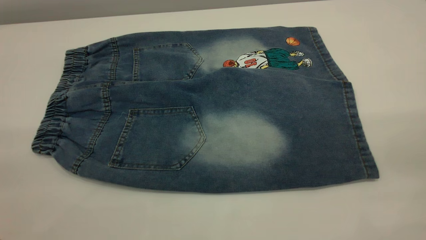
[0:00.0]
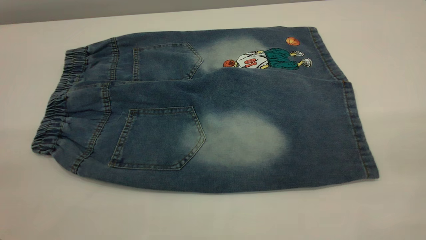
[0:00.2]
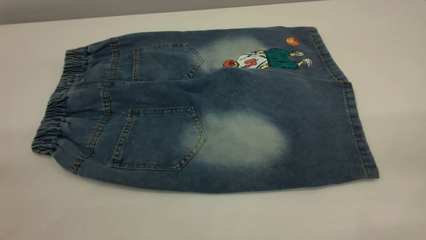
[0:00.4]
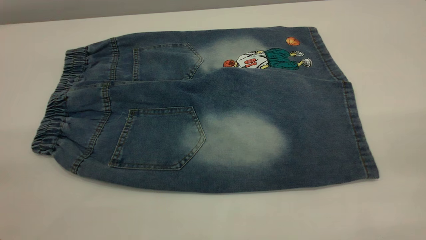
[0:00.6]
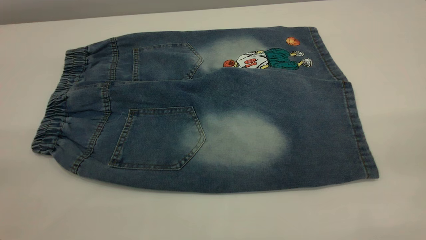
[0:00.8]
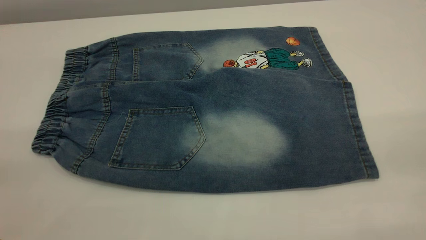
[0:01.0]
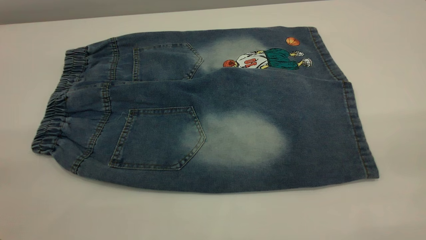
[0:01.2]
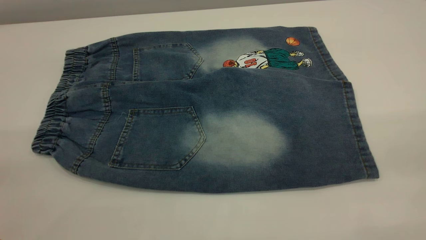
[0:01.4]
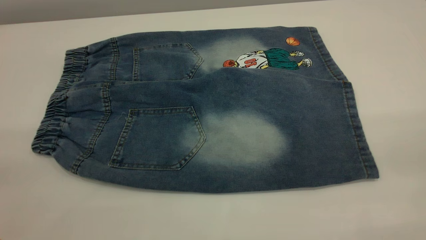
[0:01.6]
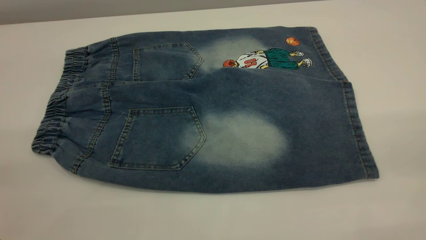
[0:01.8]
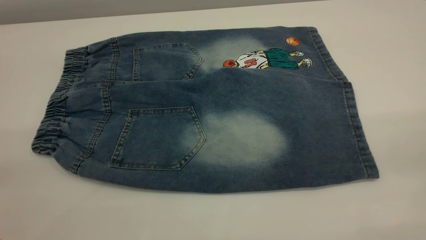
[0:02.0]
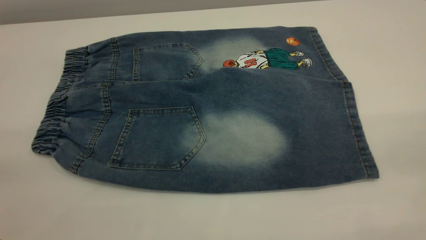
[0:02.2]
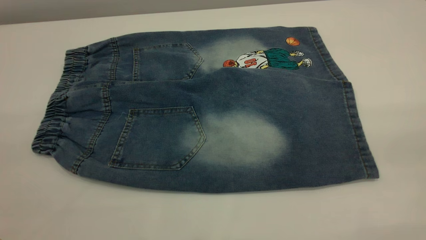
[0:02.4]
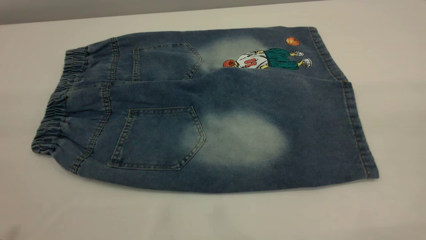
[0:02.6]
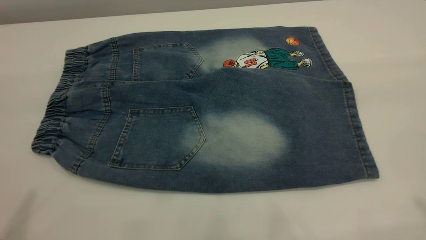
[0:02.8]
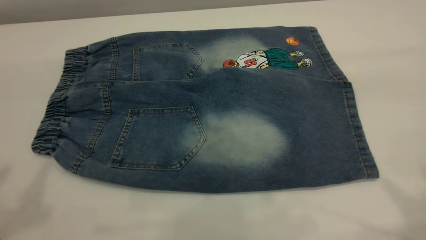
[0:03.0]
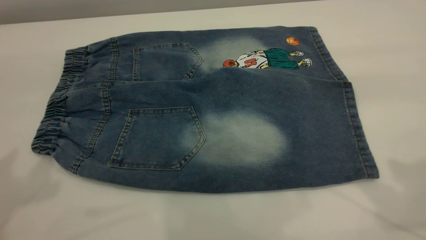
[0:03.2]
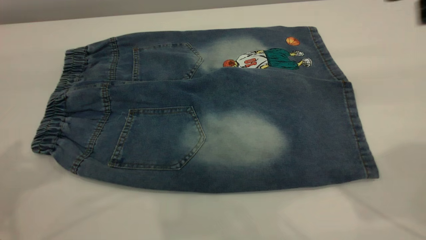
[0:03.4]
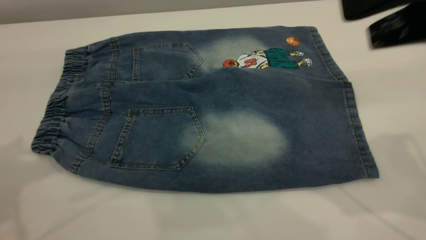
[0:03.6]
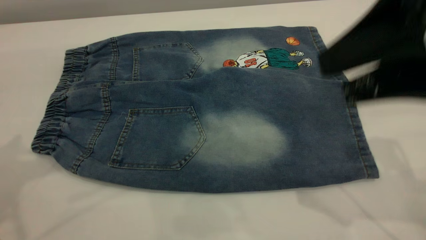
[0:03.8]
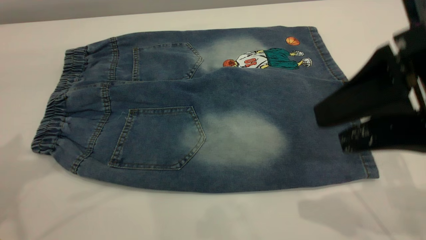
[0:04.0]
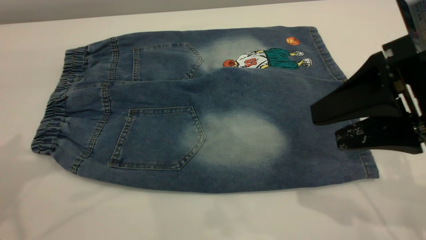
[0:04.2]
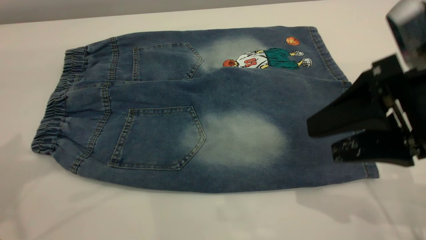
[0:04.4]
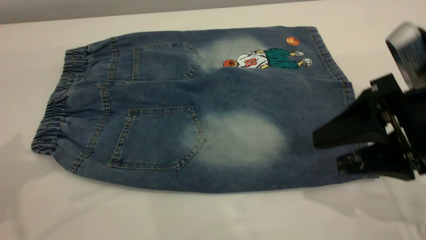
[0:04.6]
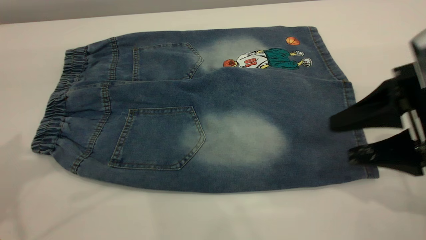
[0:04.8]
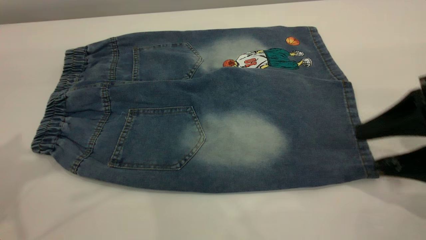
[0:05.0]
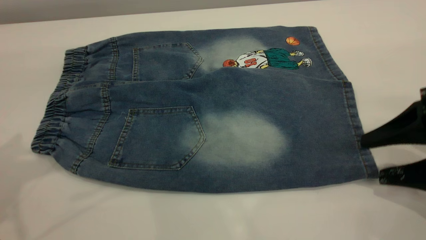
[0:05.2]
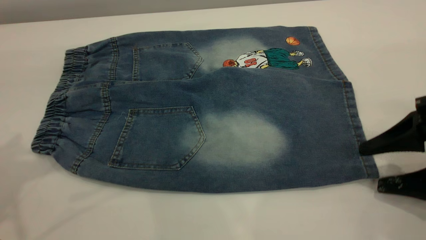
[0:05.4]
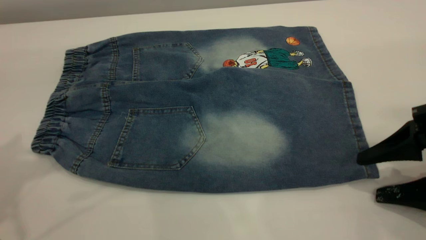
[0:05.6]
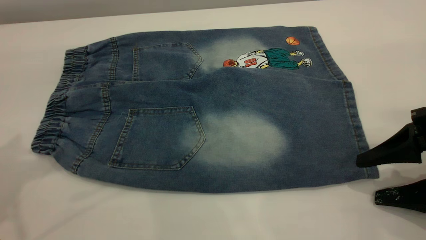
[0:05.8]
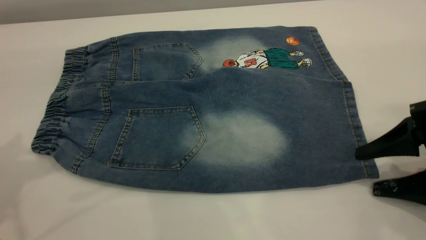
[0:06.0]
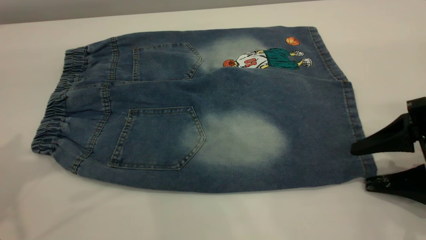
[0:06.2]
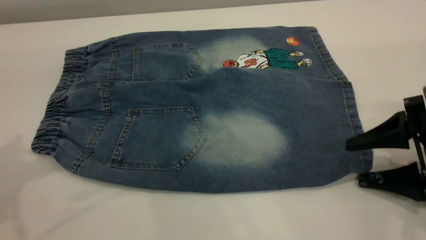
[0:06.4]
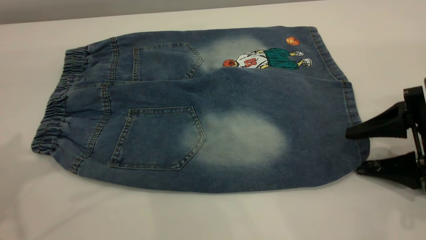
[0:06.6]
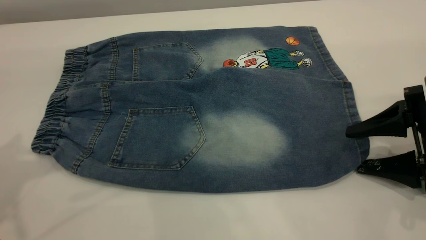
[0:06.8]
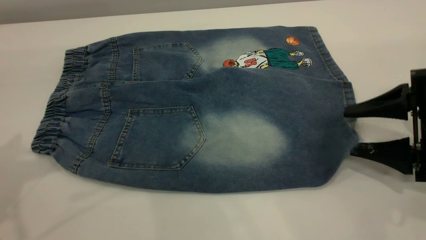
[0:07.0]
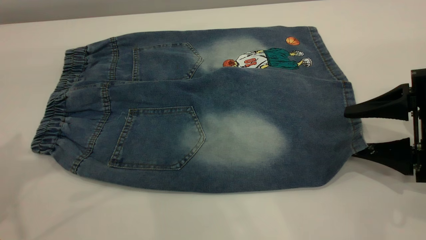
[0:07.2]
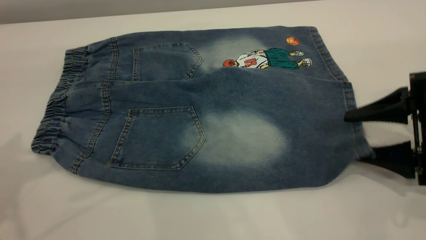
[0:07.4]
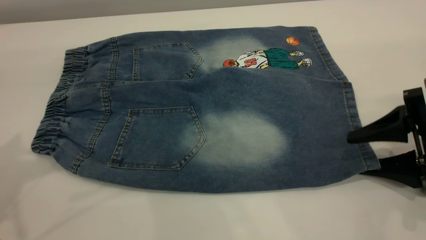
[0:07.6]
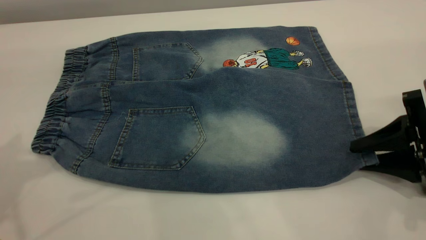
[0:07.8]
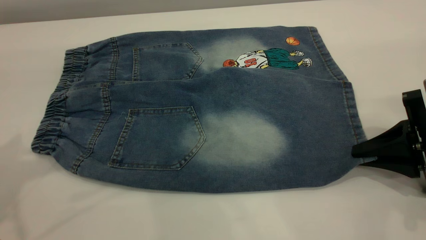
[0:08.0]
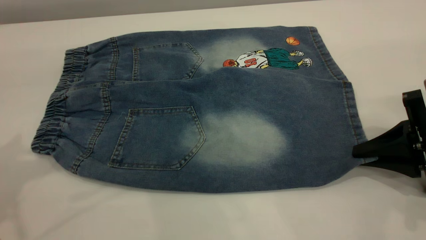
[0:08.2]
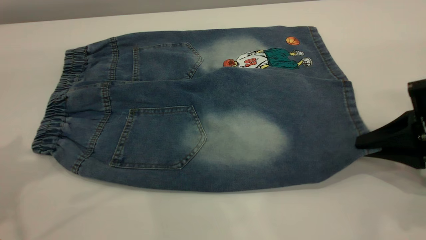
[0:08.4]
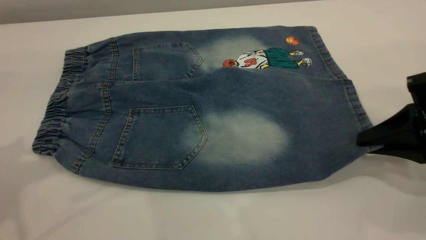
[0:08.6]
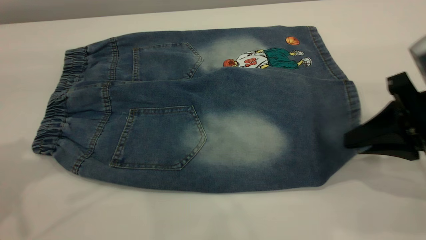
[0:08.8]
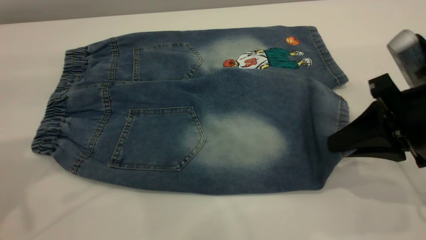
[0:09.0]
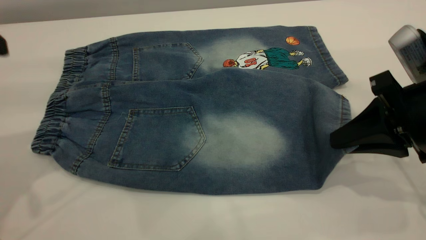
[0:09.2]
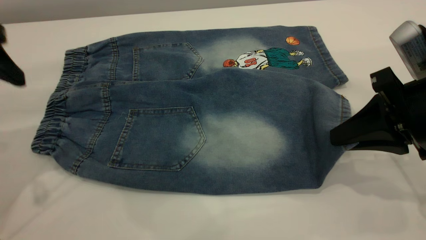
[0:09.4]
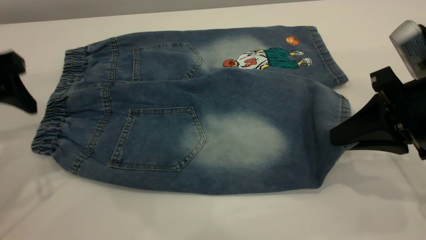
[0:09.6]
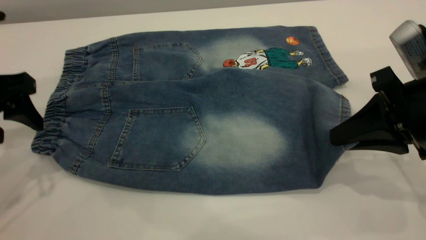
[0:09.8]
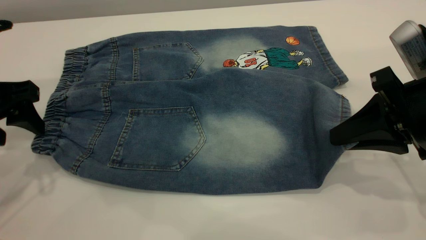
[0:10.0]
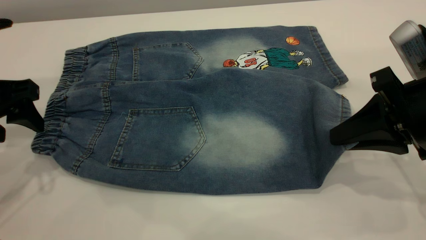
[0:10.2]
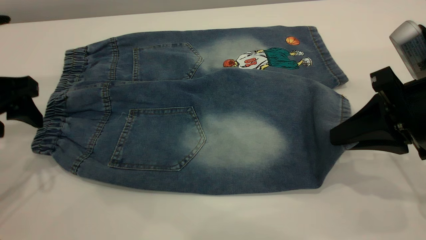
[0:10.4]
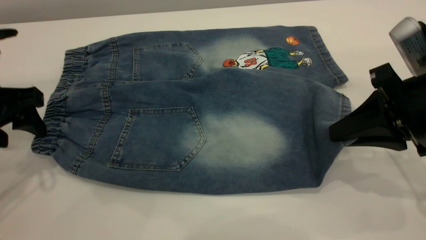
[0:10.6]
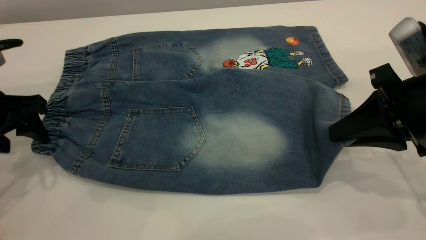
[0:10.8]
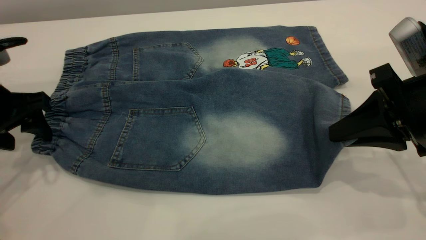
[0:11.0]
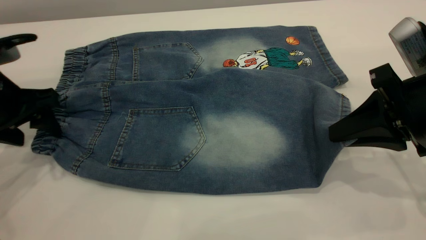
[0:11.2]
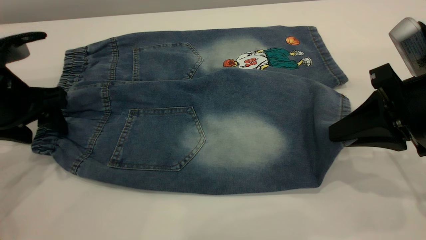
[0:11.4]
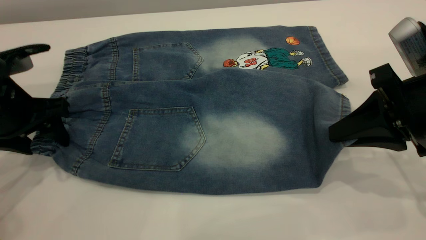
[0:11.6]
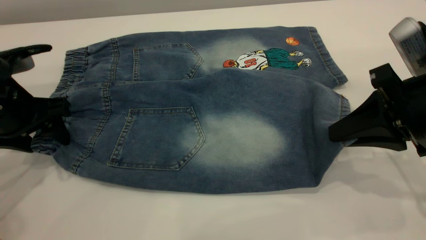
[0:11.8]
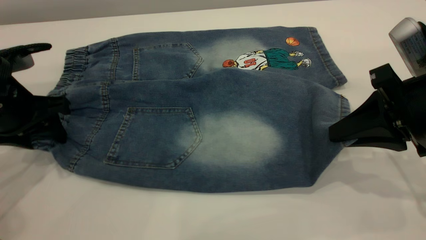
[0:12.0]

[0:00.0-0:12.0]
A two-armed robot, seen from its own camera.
0:00.0 to 0:01.6: The two grippers keep their place.
0:03.0 to 0:04.4: The left gripper travels forward and downward by some 10 cm; the right gripper shifts approximately 20 cm downward.
0:04.4 to 0:06.0: The right gripper moves downward and to the right, roughly 10 cm.
0:06.0 to 0:07.6: The grippers make only small movements.
0:07.6 to 0:09.0: The right gripper goes some 5 cm upward, and closes its fingers.
0:09.0 to 0:10.4: The left gripper travels downward by approximately 15 cm.
0:10.4 to 0:12.0: The left gripper heads downward, covering about 5 cm.

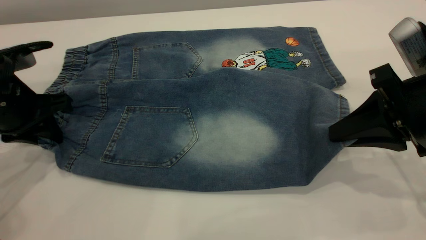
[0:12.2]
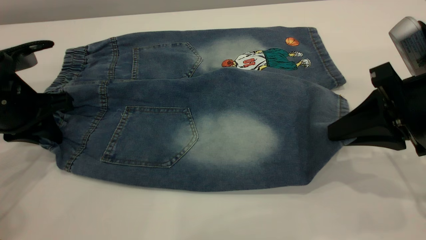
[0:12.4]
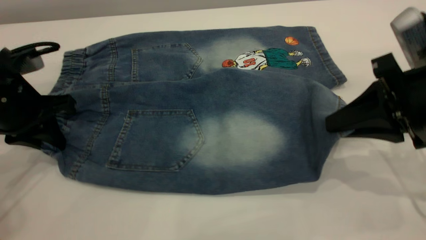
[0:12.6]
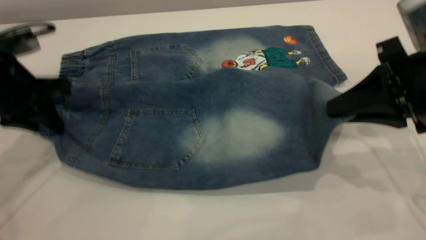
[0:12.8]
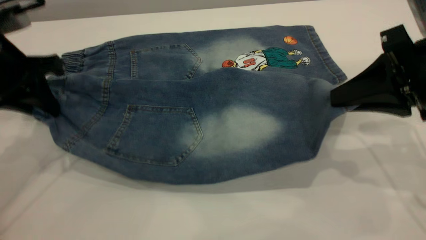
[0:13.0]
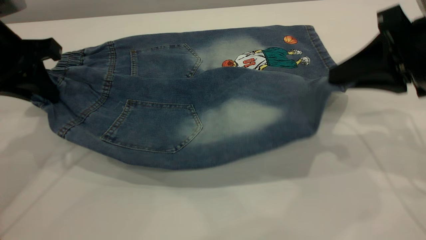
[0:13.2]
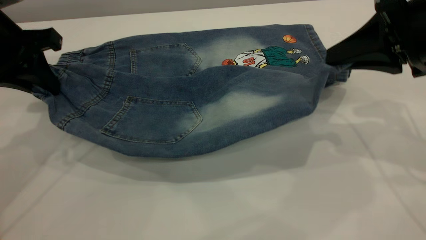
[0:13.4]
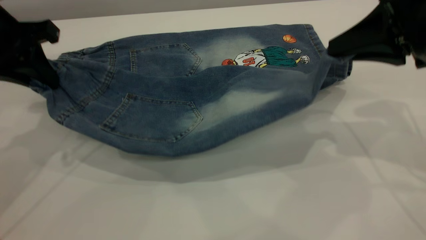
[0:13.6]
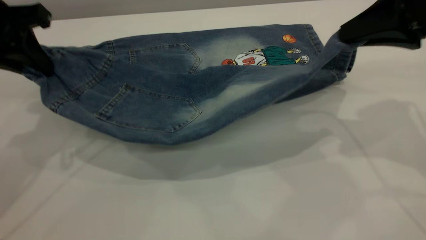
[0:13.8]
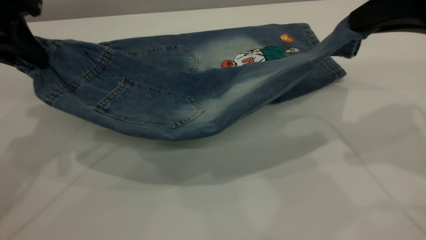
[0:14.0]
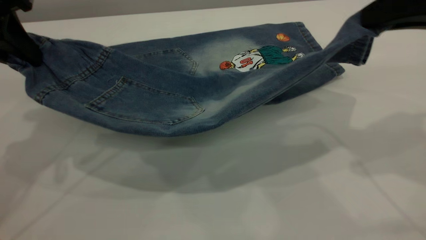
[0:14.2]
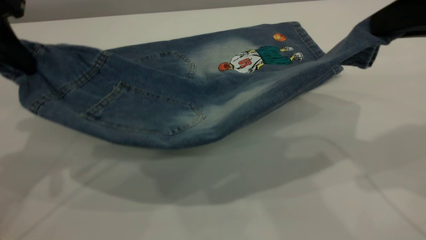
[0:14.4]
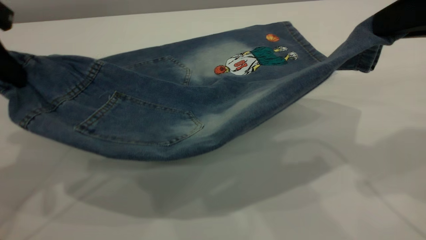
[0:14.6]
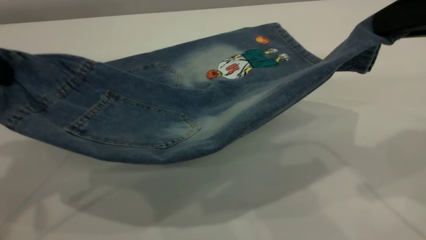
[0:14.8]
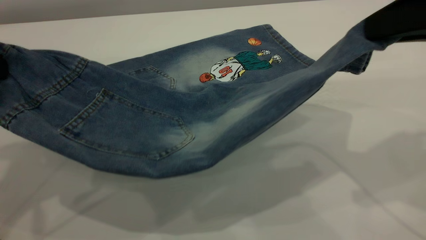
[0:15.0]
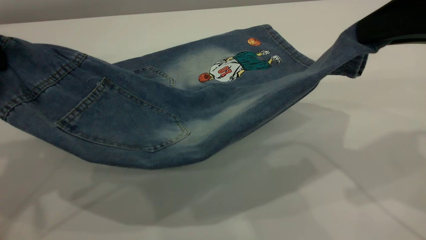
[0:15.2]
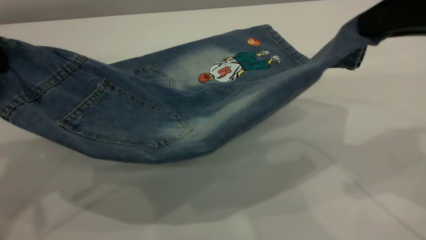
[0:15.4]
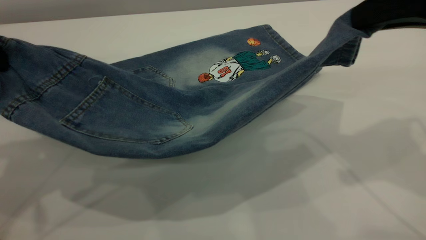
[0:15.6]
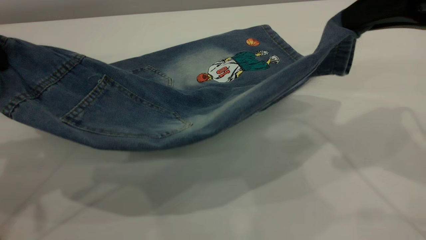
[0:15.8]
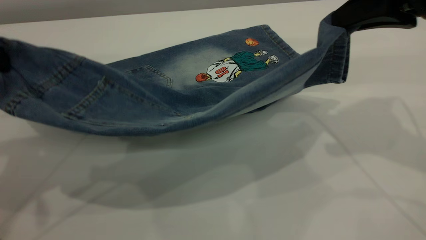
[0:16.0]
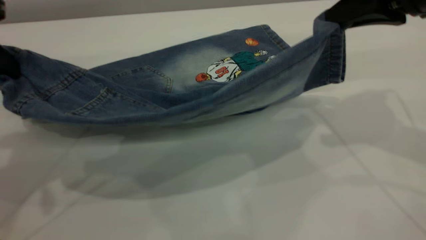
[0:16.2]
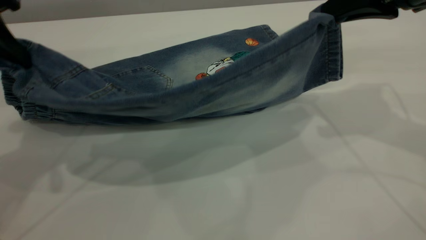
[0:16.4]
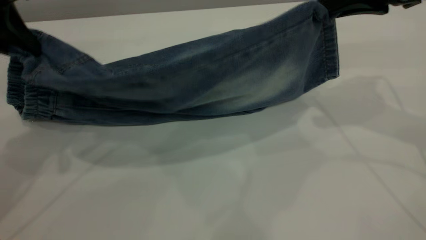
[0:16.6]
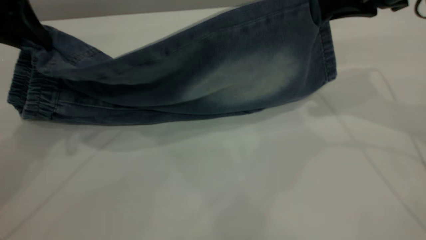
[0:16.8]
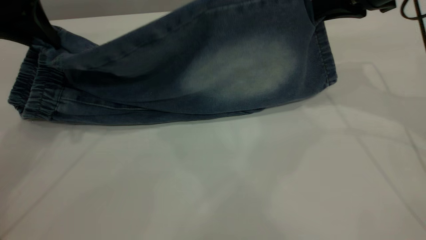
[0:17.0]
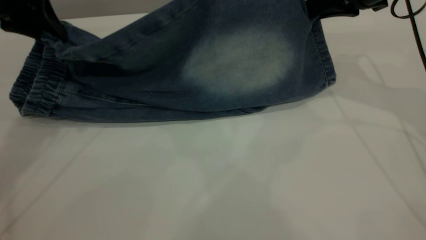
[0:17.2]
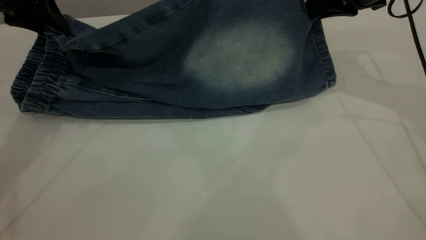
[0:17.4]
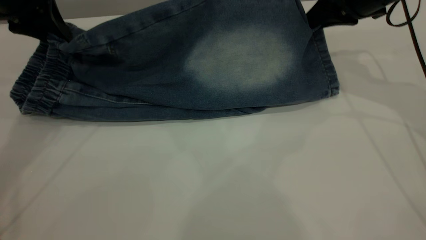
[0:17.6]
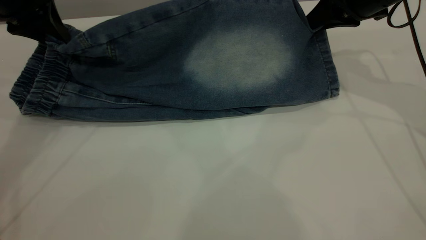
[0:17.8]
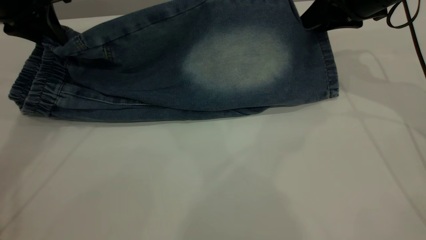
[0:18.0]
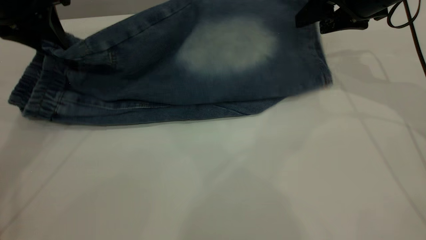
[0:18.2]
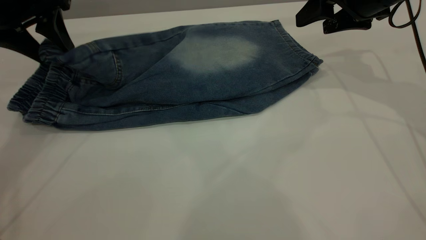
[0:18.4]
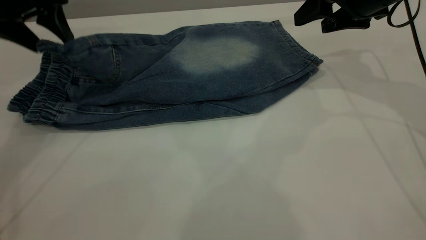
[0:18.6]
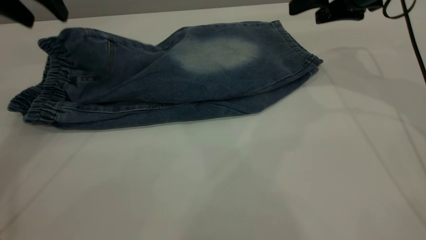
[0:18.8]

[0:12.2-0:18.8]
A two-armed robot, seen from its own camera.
0:12.2 to 0:13.8: Both grippers travel together upward, approximately 10 cm.
0:13.8 to 0:15.4: The right gripper is displaced backward by approximately 5 cm, while the left gripper moves backward, about 10 cm.
0:15.4 to 0:17.2: The two grippers go roughly 15 cm forward.
0:17.2 to 0:18.8: The left gripper opens up; the right gripper opens up.
